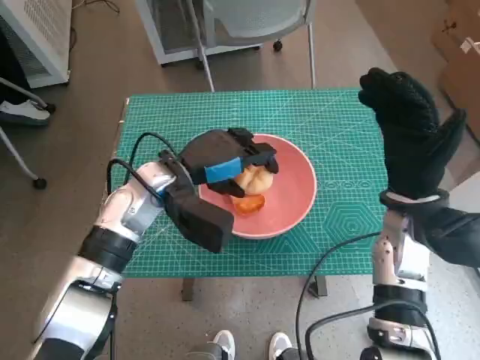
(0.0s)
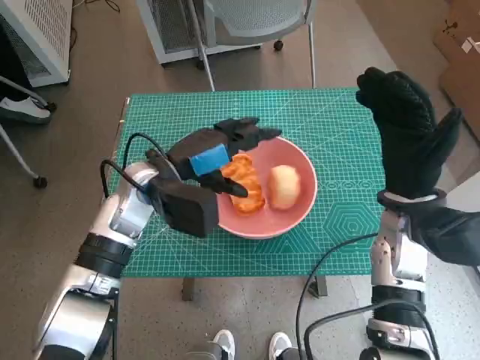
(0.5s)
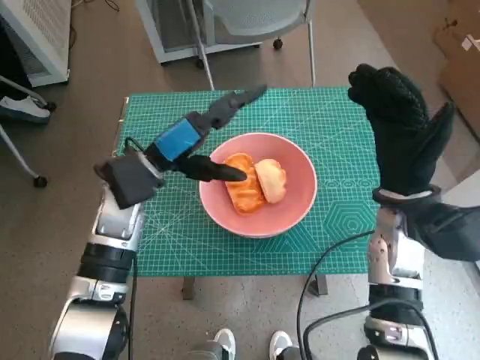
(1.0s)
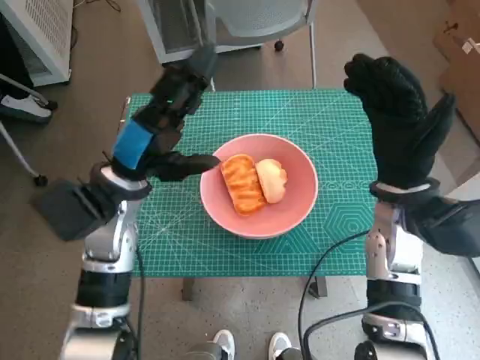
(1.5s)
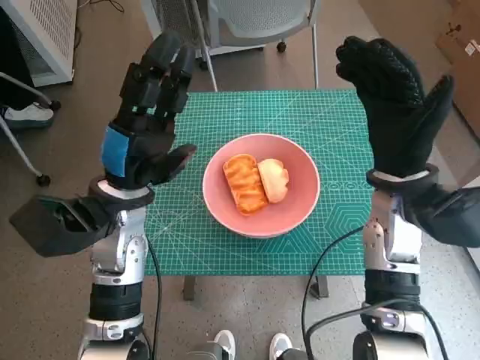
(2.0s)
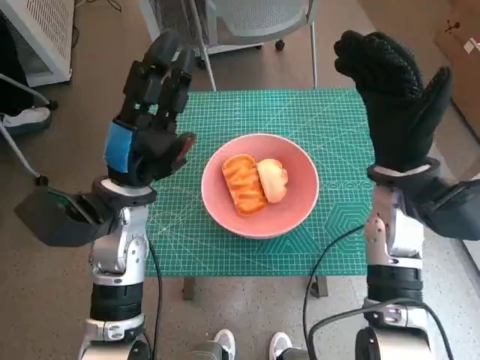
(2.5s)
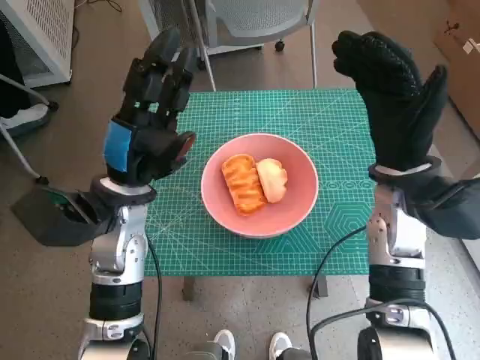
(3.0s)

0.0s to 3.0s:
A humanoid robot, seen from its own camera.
0.0s to 1.5s: The left hand ends up about 5 cm from where it was.

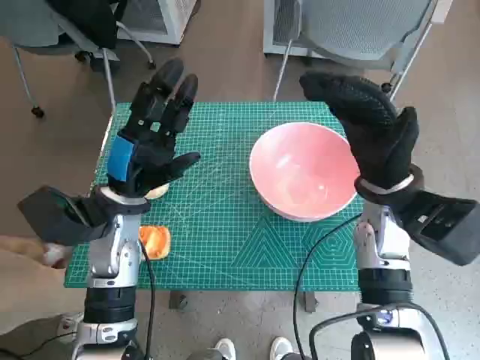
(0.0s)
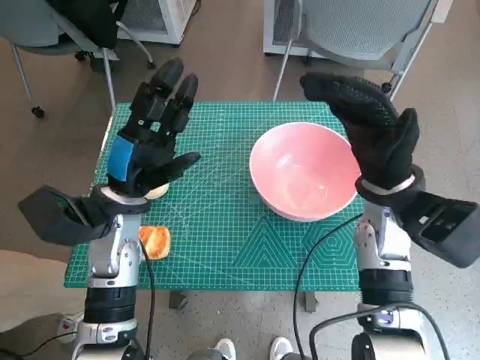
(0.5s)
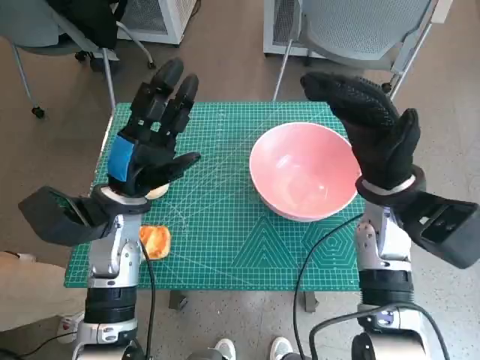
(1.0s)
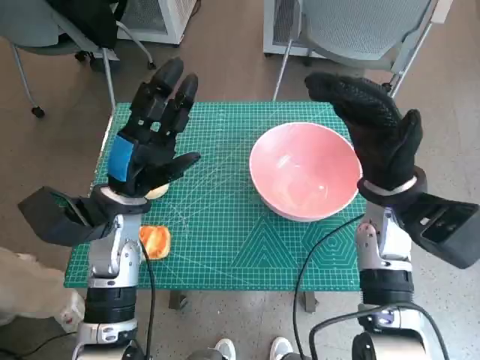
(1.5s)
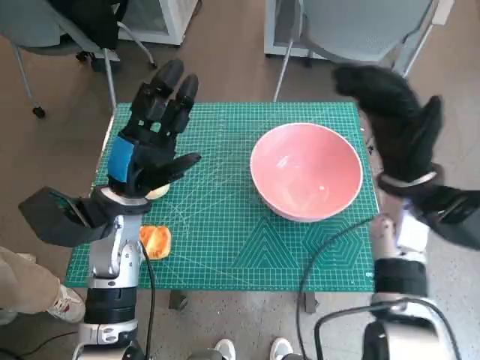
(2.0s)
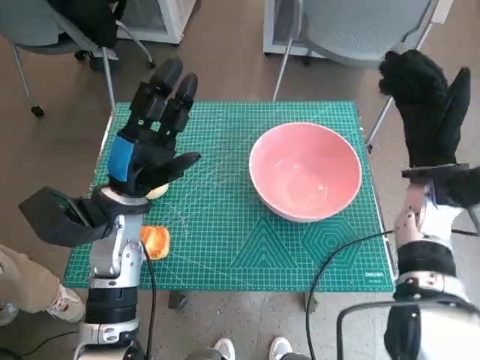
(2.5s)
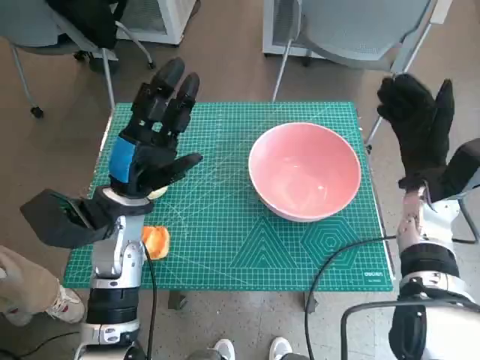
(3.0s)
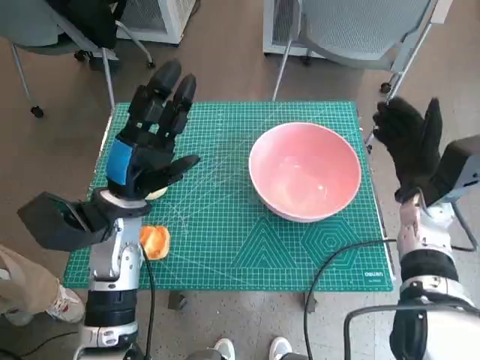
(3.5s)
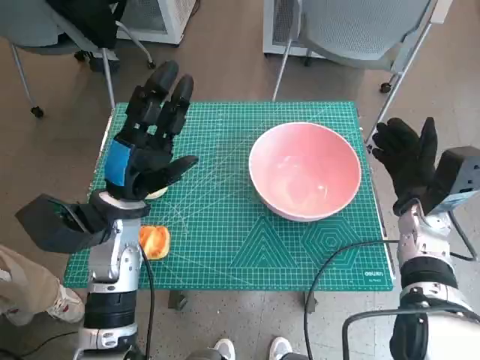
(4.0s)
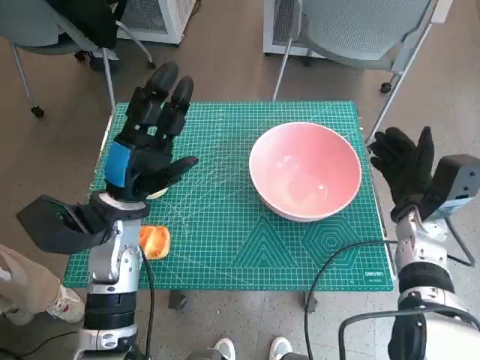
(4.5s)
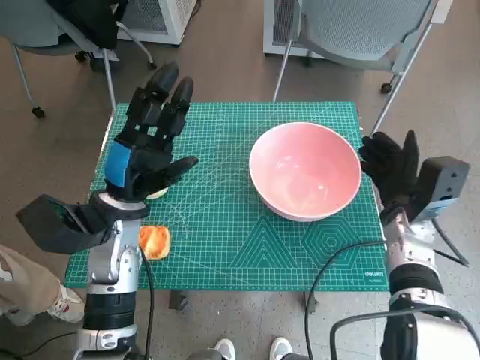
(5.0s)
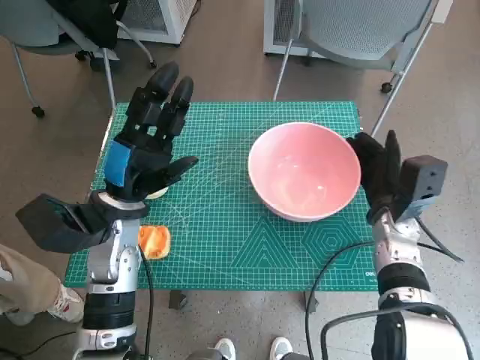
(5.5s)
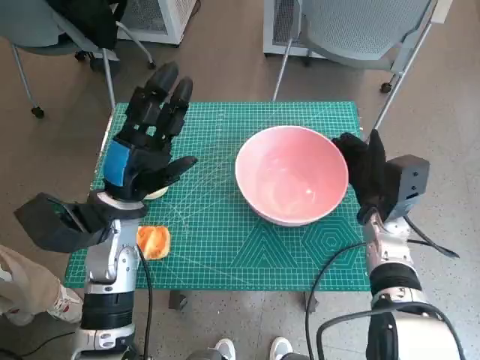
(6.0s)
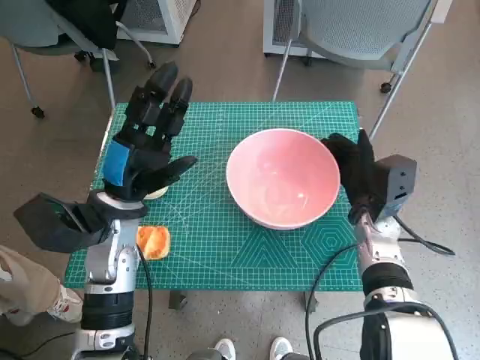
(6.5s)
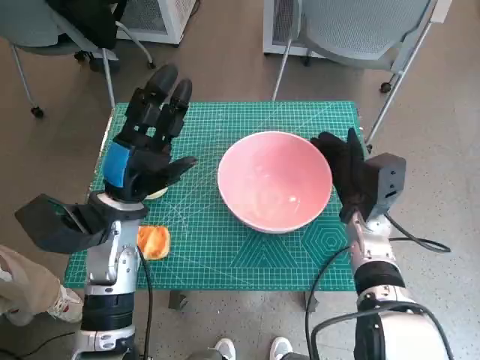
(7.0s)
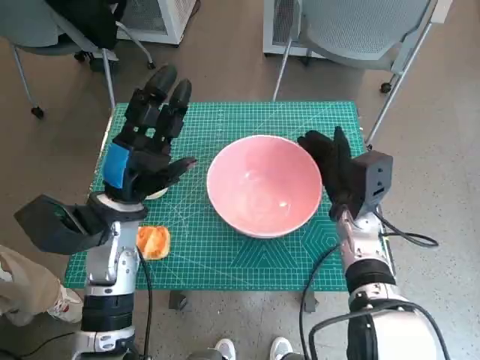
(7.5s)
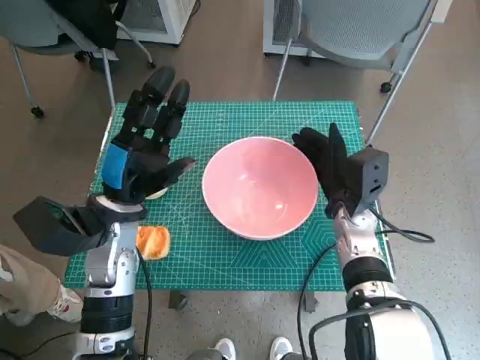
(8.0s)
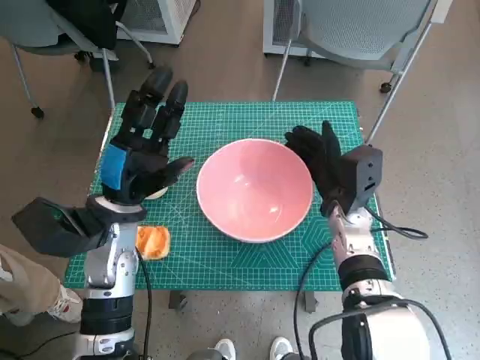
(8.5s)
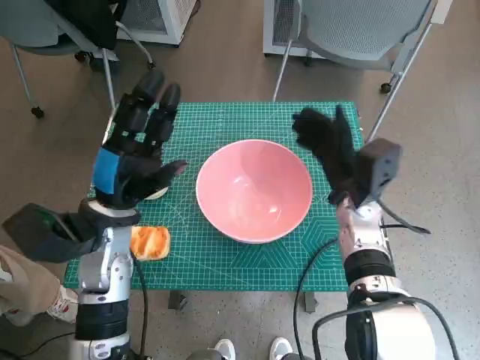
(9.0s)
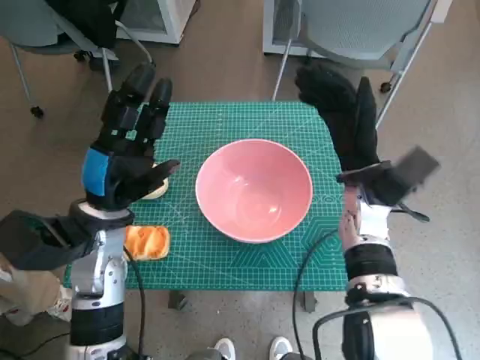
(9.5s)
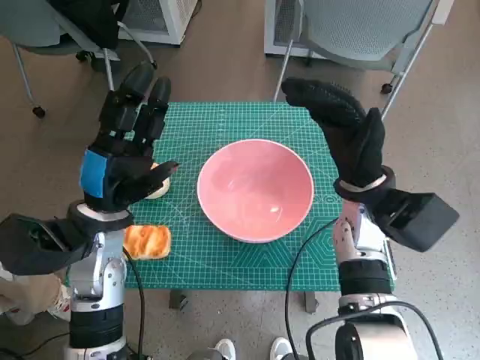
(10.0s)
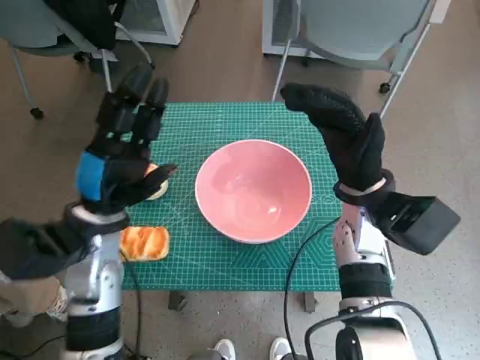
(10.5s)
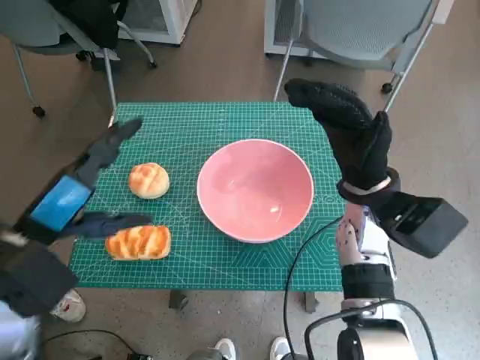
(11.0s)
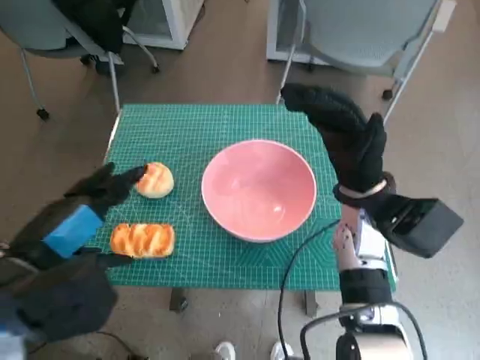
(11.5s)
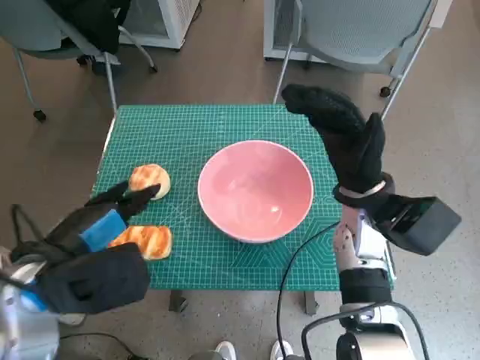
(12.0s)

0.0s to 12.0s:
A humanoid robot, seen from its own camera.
Step, 0.0s to 9.0s: Move the pink bowl to the center of table with right hand.
2.0s to 4.0s: The right hand shifts approximately 10 cm downward and to the right.
4.0s to 6.0s: The right hand moves some 5 cm.
8.0s to 10.0s: The right hand moves upward, approximately 10 cm.
10.0s to 12.0s: The left hand moves backward, some 10 cm.

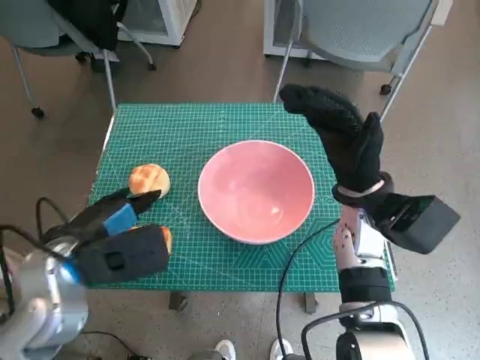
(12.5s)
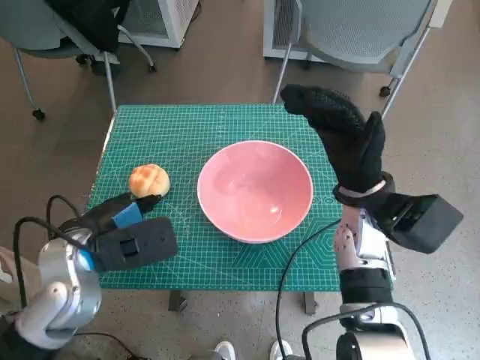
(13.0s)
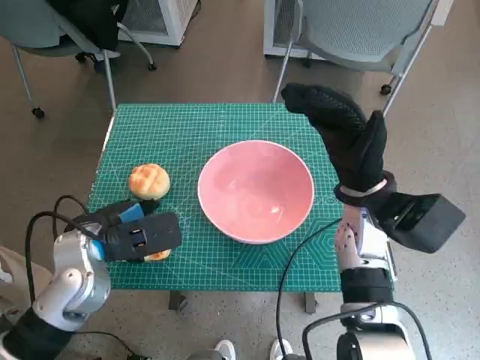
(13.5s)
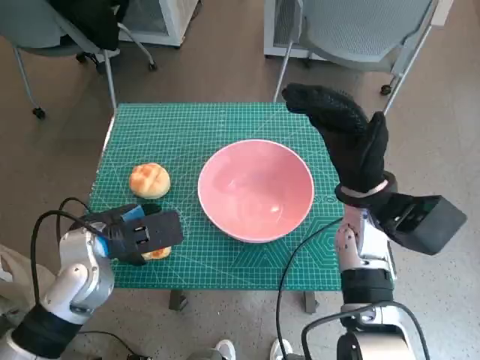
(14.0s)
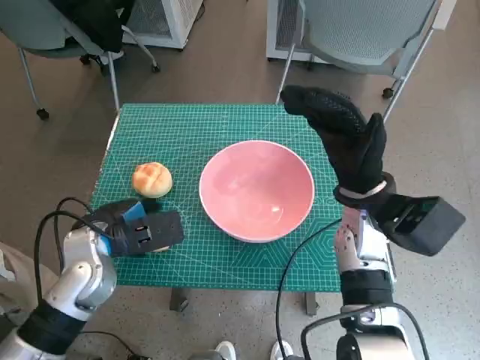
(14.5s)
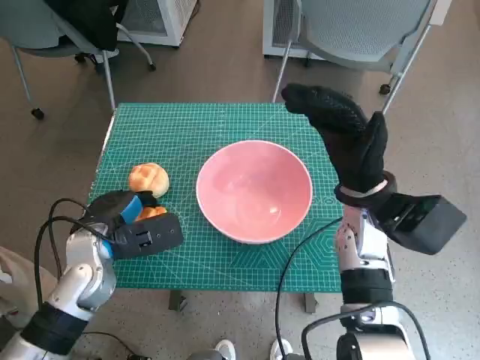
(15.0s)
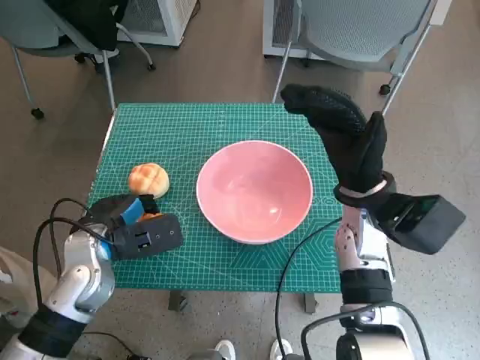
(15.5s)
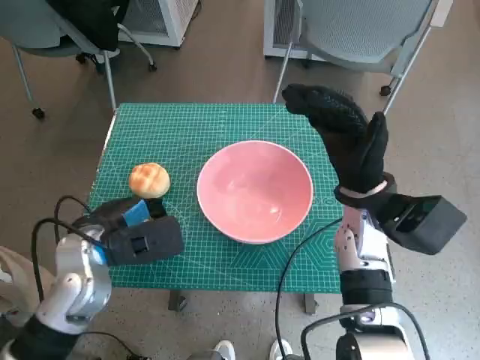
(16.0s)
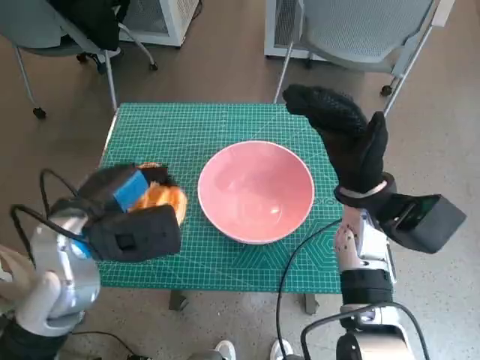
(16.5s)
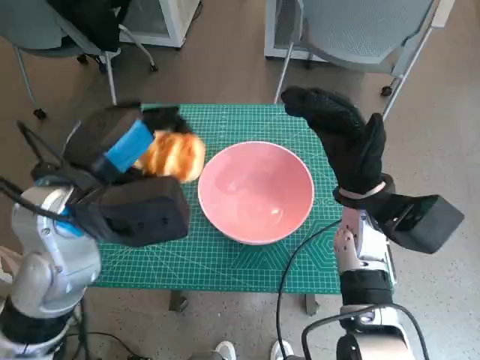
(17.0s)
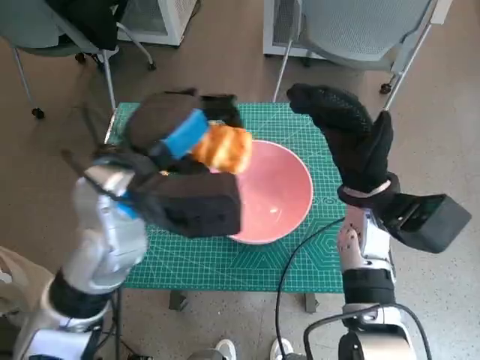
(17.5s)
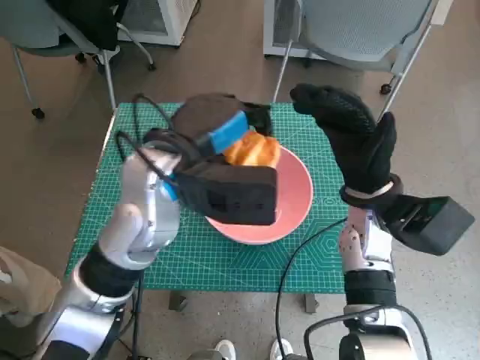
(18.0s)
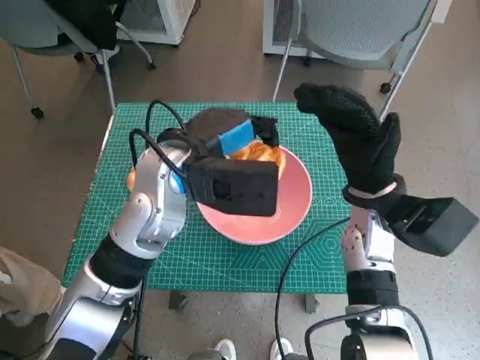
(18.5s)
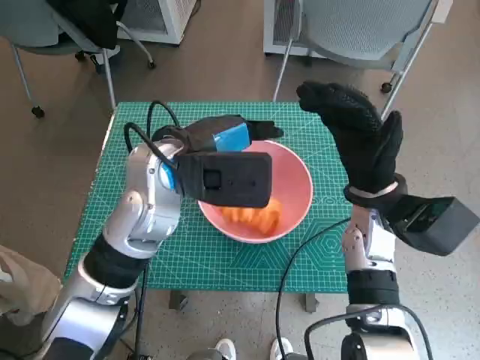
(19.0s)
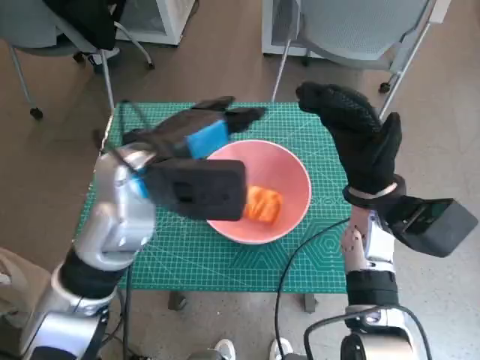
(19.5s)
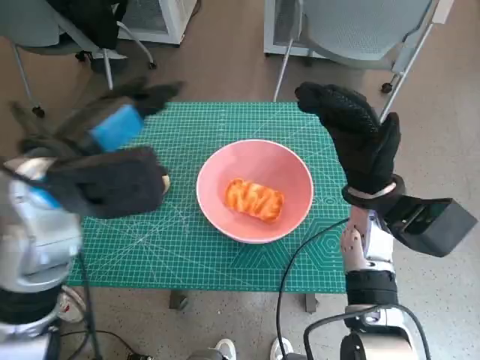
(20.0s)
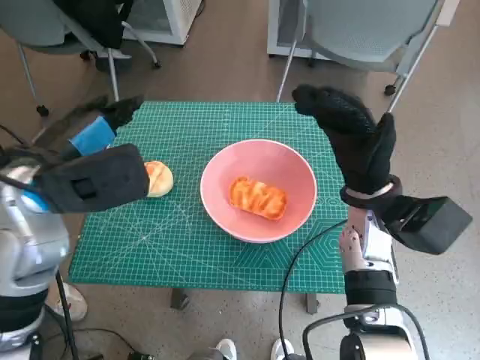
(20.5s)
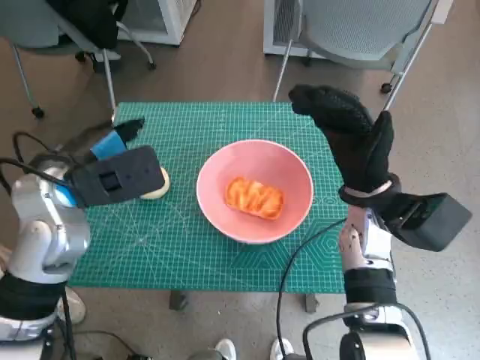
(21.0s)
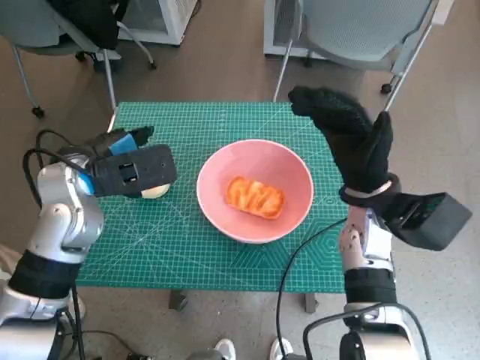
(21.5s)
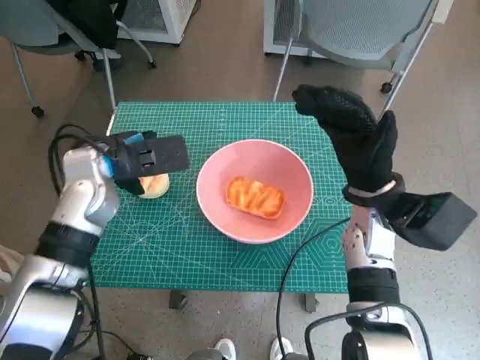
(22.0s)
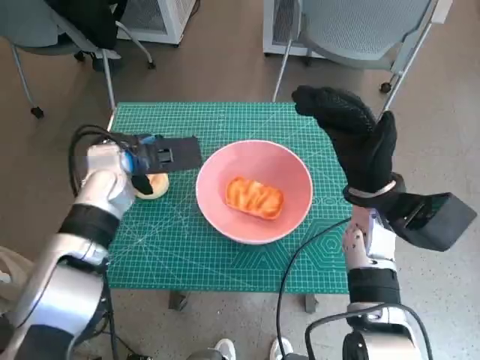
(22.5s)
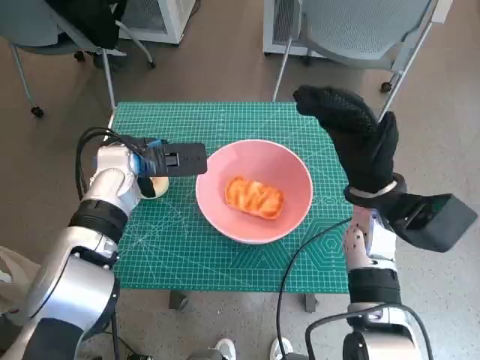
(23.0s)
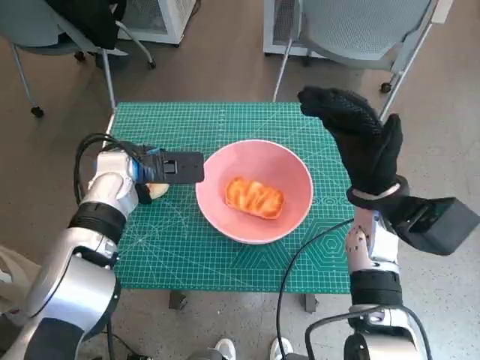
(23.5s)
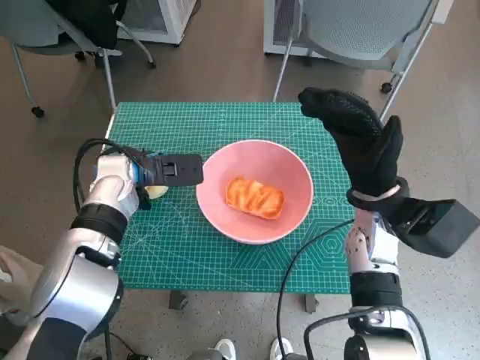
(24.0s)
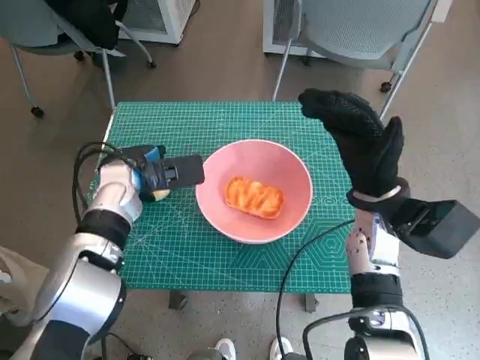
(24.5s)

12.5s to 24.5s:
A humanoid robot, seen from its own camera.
Step, 12.5s to 14.5s: Grasp the long bread with left hand.
Step, 15.0s to 18.5s: Place the long bread in pink bowl with left hand.
12.5s to 14.5s: The left hand goes some 5 cm downward.
14.5s to 16.5s: The left hand goes roughly 5 cm upward.
16.5s to 18.5s: The left hand heads to the right and forward, covering approximately 15 cm.
18.5s to 20.5s: The left hand is displaced to the left by approximately 10 cm.
20.5s to 22.5s: The left hand shifts about 15 cm forward and downward.
22.5s to 24.5s: The hands make only small movements.
